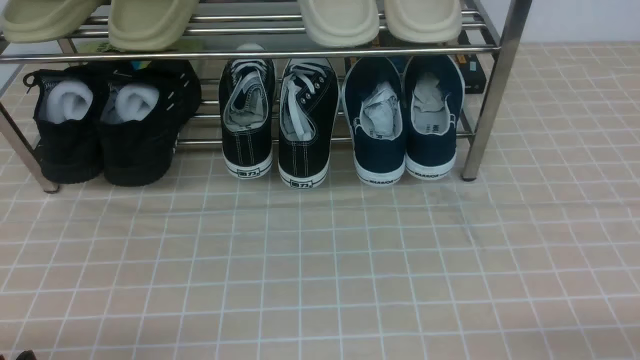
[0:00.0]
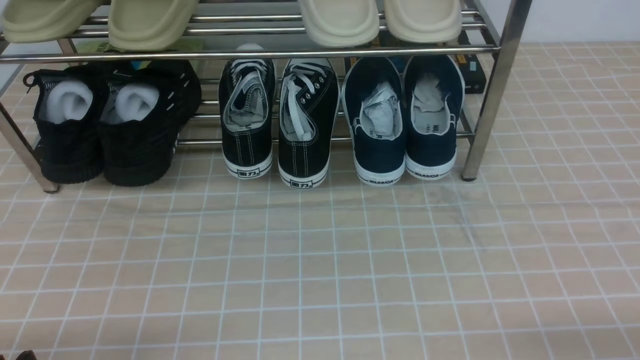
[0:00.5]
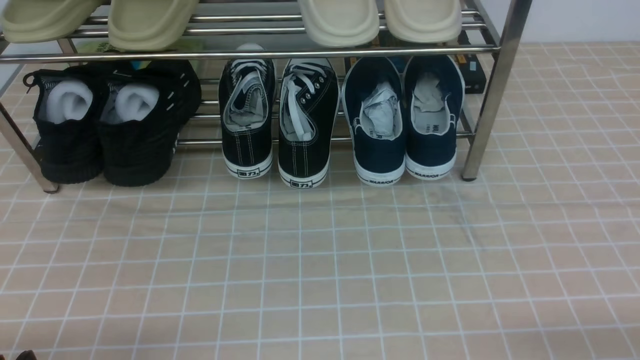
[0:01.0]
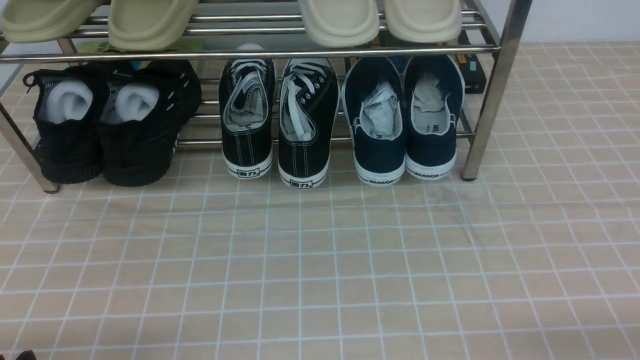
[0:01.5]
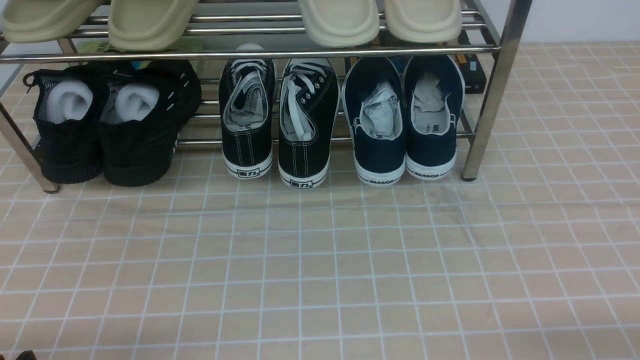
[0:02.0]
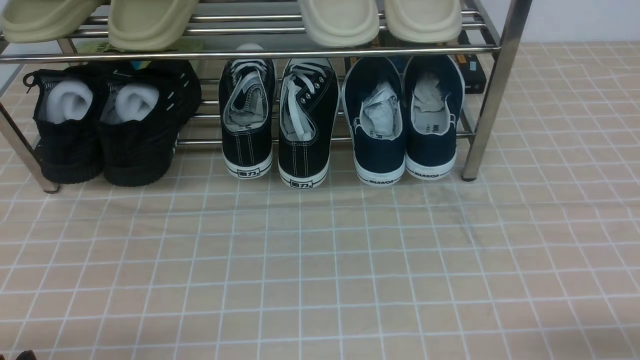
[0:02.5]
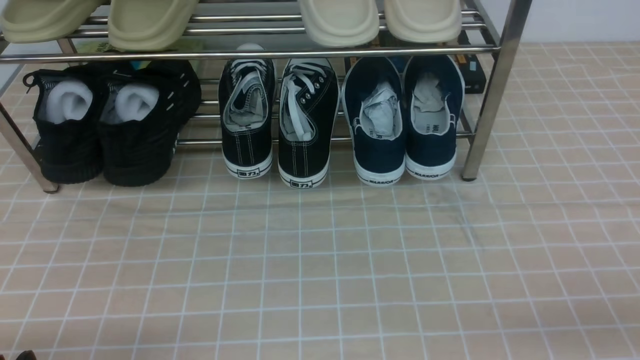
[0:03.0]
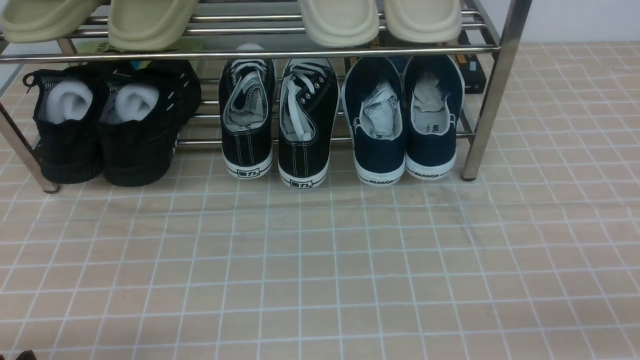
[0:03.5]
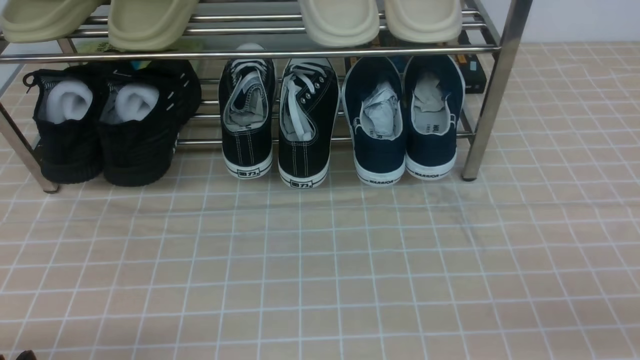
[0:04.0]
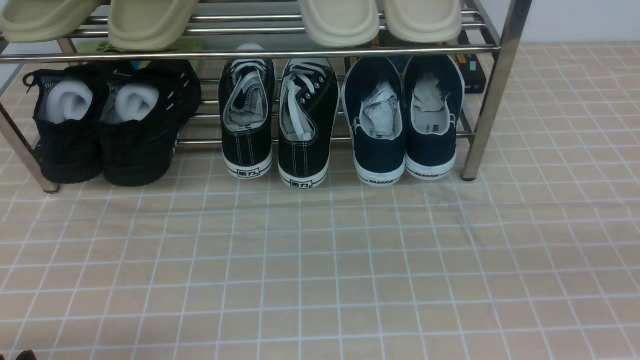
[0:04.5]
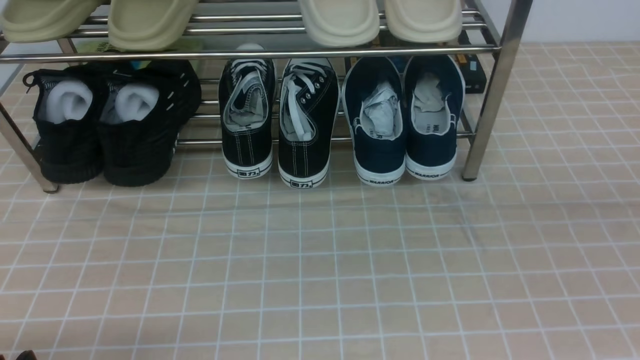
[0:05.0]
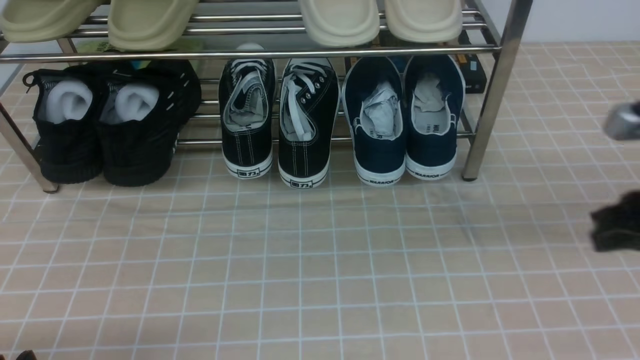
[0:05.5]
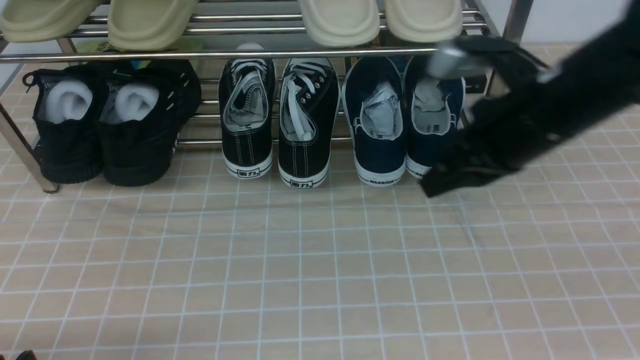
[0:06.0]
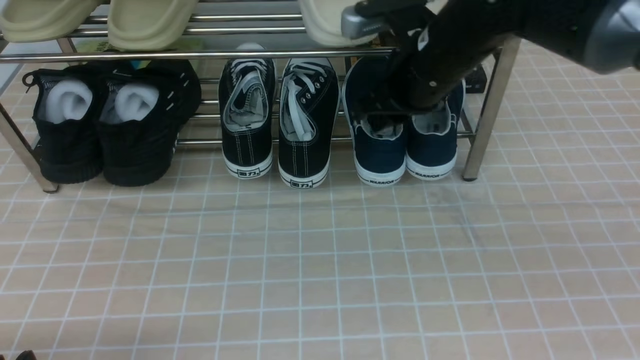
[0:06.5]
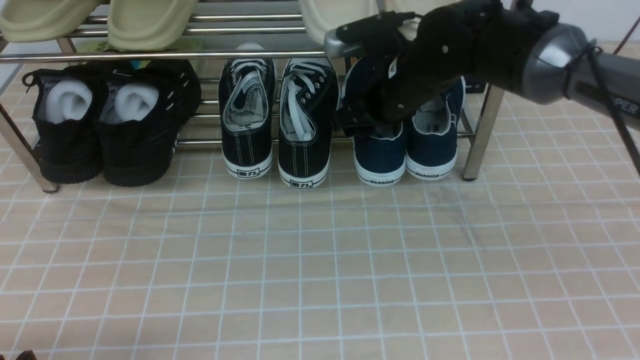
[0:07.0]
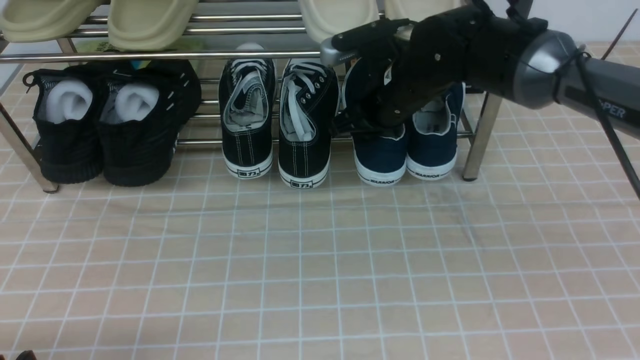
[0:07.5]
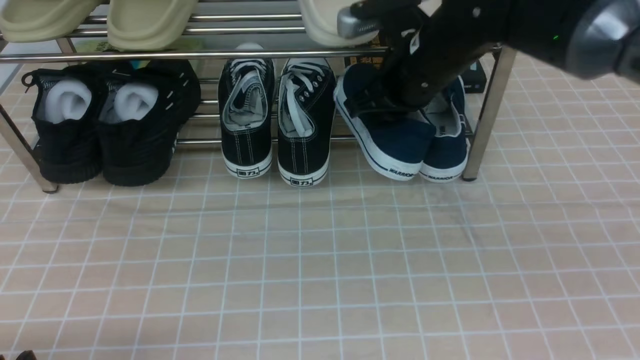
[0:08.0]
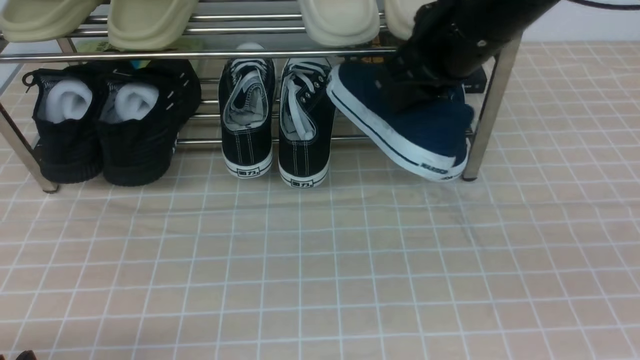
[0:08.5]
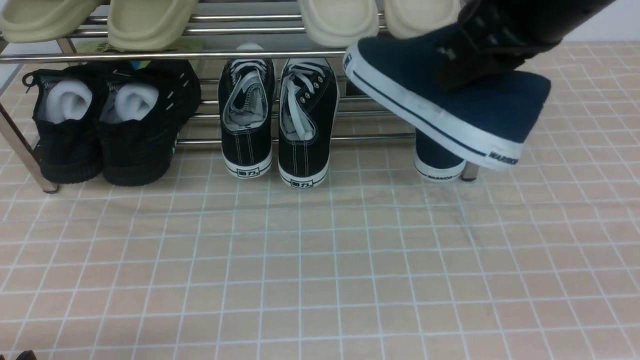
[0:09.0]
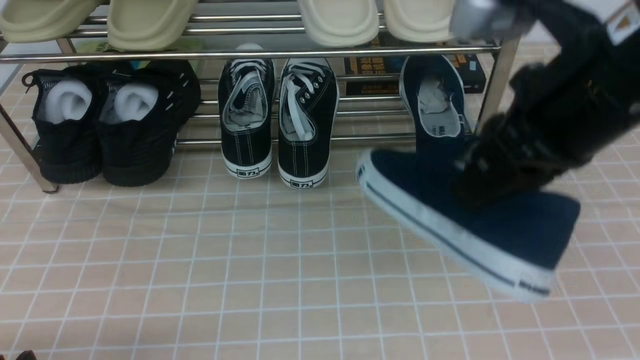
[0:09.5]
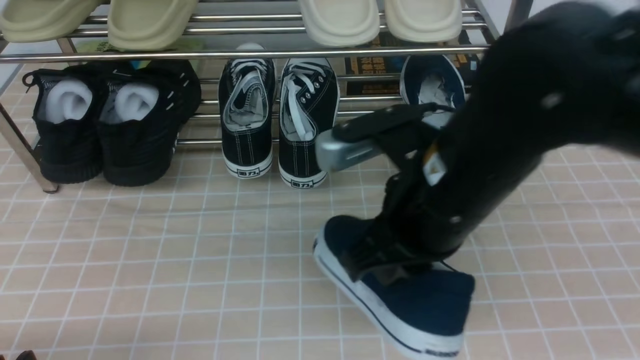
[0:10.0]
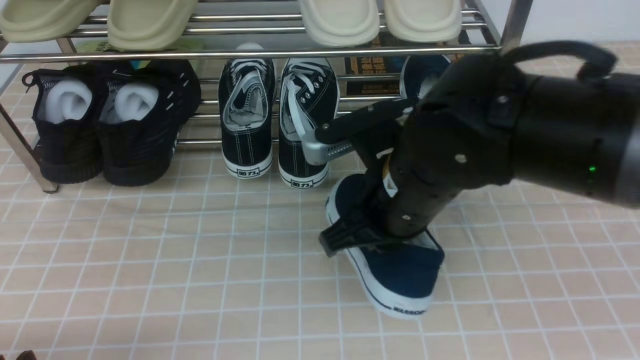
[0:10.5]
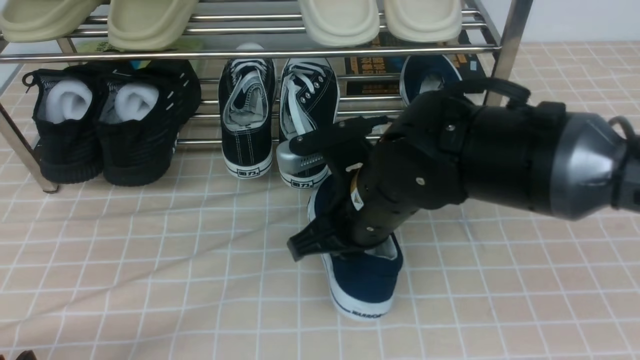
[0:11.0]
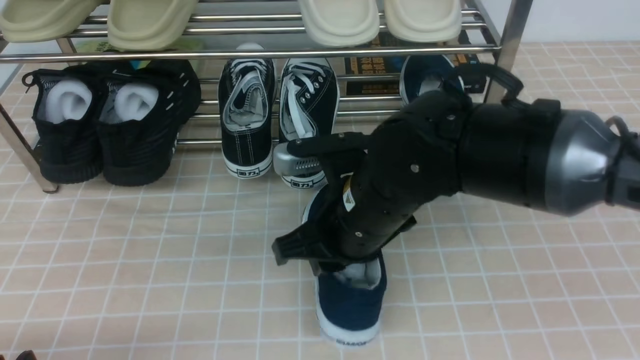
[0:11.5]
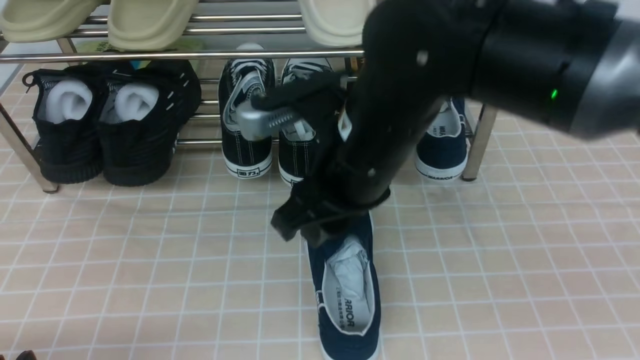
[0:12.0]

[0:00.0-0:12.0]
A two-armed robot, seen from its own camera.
Step, 0:00.0 to 0:07.5: use the right arm to clamp a shoe on the right side of the shoe rack.
Step, 0:08.0 to 0:11.5: use the right arm to take out the clamped shoe from the shoe rack and put it down.
0:00.0 to 0:02.0: Both grippers stay put.
0:04.0 to 0:06.0: The right gripper shifts approximately 30 cm forward and to the left, and closes up.
0:06.0 to 0:08.0: The right gripper shifts about 10 cm forward and to the left, and opens and closes again.
0:08.0 to 0:10.0: The right gripper moves backward, roughly 15 cm.
0:10.0 to 0:12.0: The right gripper goes approximately 5 cm to the left, travels downward and back again, roughly 5 cm each way, and opens.

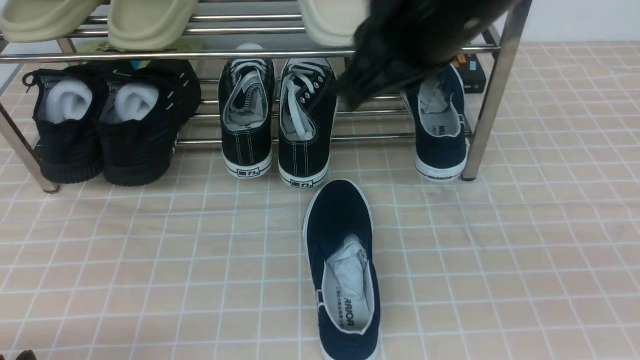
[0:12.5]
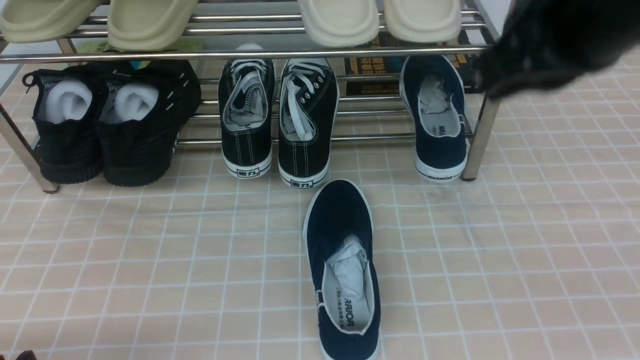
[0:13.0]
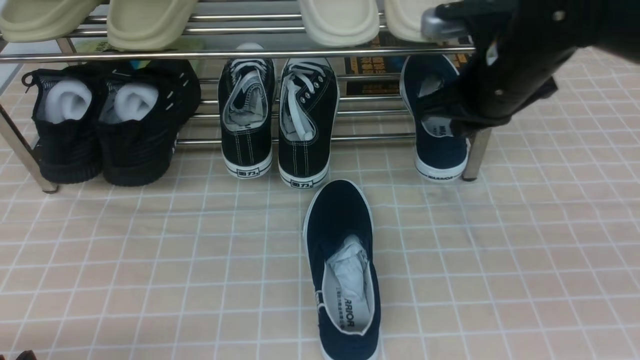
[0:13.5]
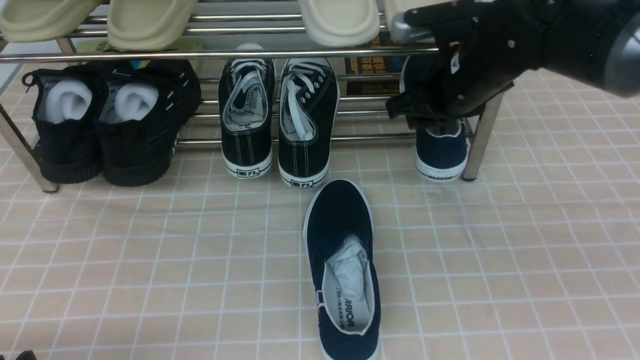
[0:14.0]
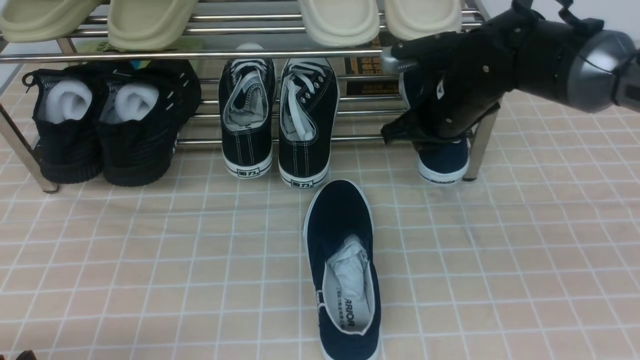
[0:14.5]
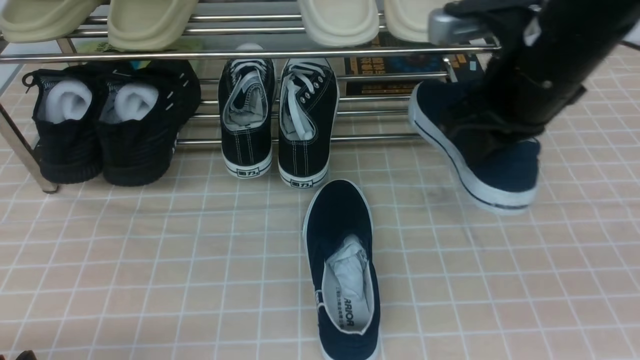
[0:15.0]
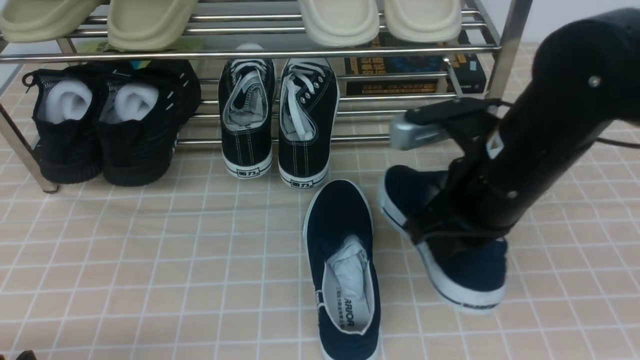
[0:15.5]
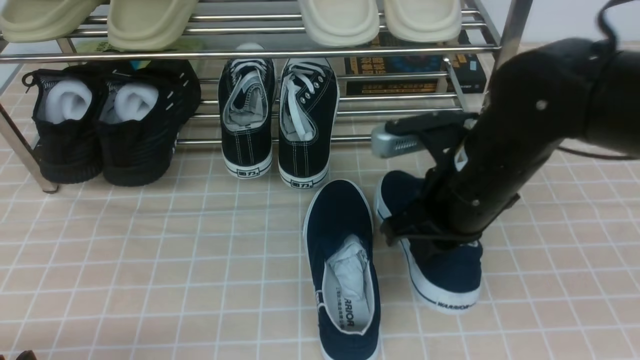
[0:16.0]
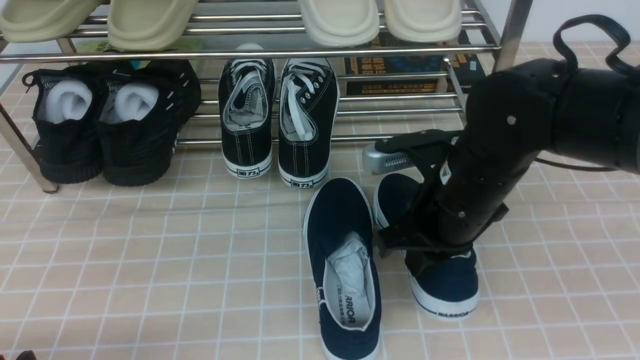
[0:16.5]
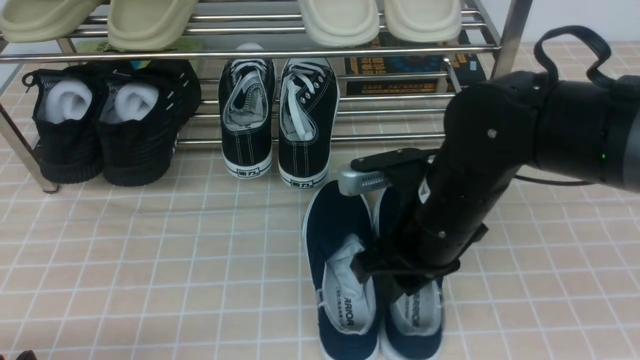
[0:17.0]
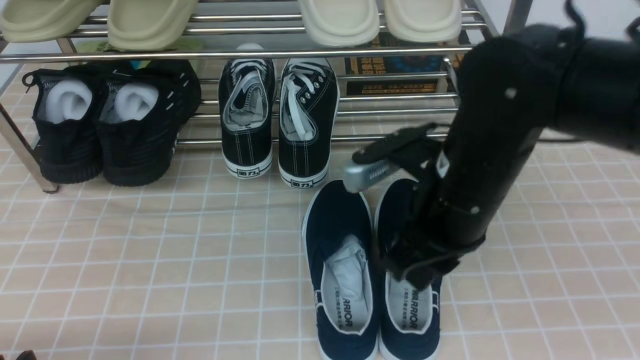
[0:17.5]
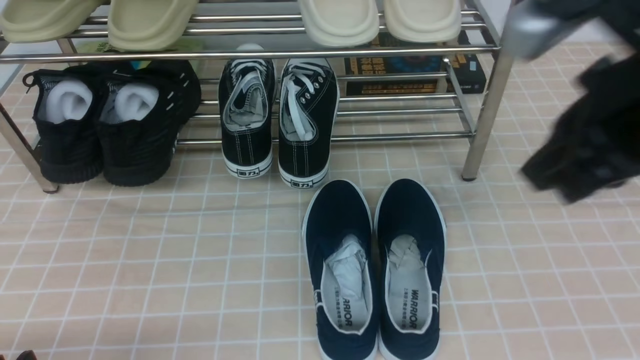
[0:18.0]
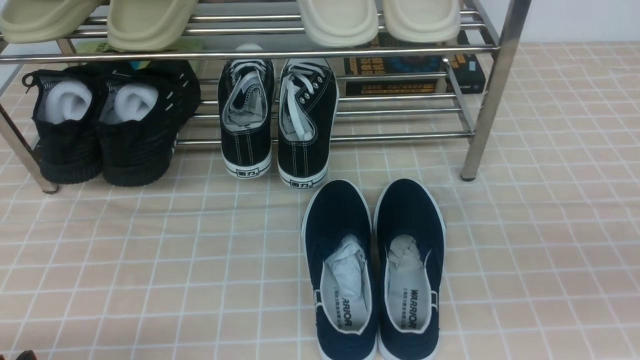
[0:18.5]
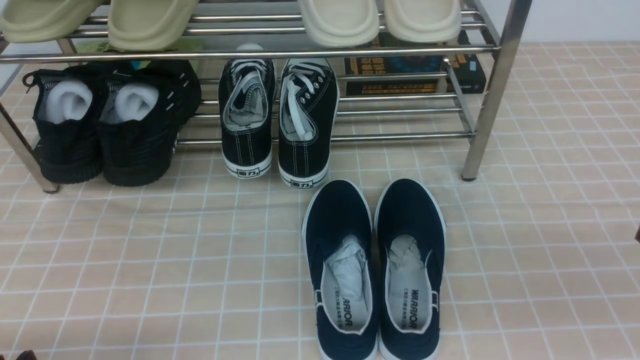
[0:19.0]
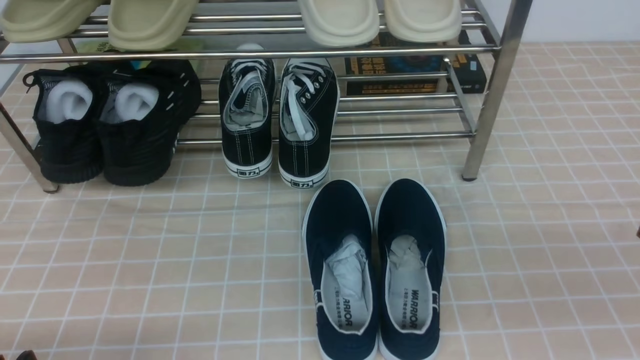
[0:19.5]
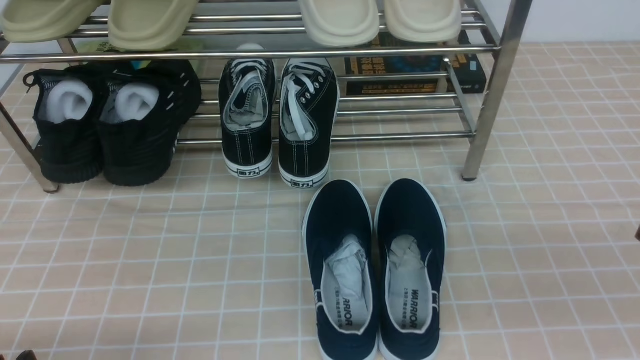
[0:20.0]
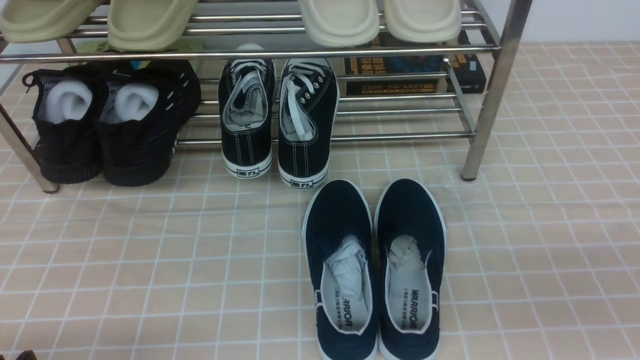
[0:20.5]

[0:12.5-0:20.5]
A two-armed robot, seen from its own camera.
Step, 0:12.5 to 0:14.5: use the right arm to clamp a shoe on the right side of the shoe rack.
Step, 0:15.0 to 0:17.0: use the right arm to take out the clamped shoe from the shoe rack and put it down.
0:12.5 to 0:14.5: The right gripper is displaced downward and forward by approximately 25 cm, and opens, then closes once more.
0:14.5 to 0:16.5: The right gripper shifts about 10 cm backward.
0:16.5 to 0:18.5: The right gripper goes some 30 cm backward, to the right and upward, and opens, then closes once more.
